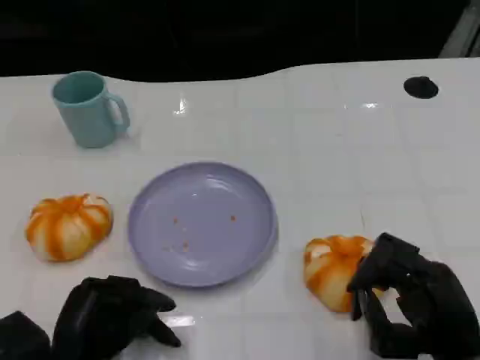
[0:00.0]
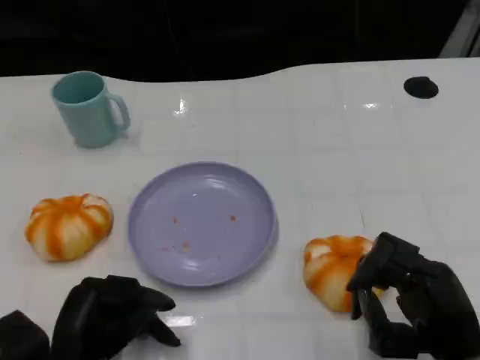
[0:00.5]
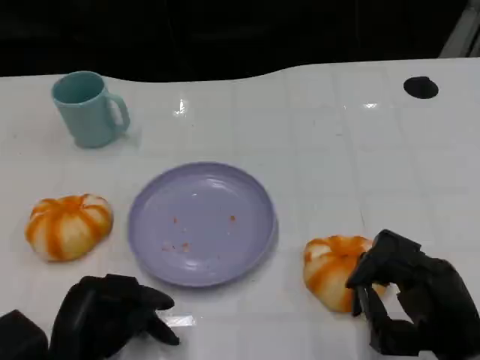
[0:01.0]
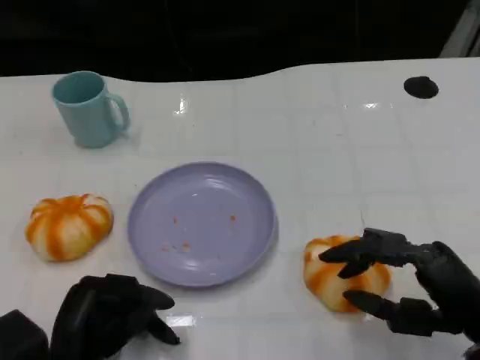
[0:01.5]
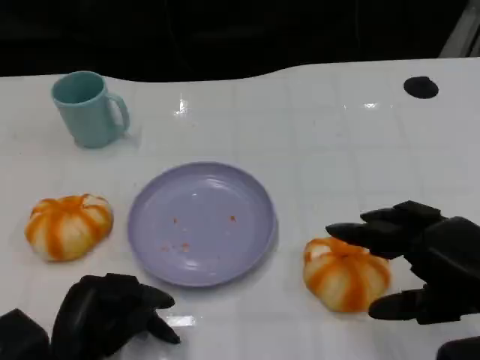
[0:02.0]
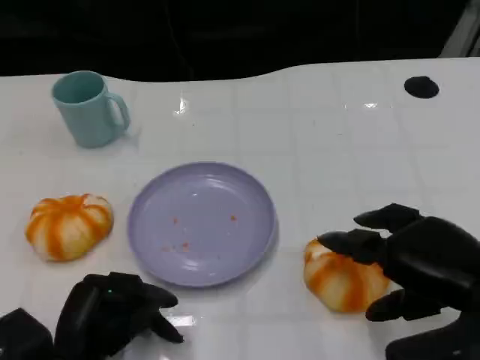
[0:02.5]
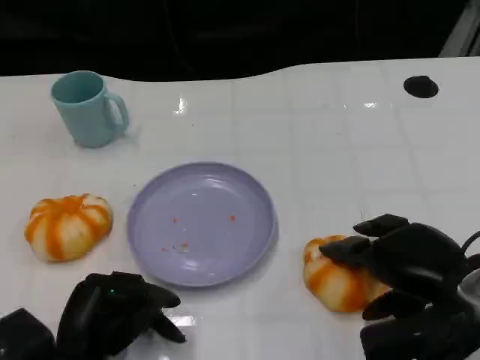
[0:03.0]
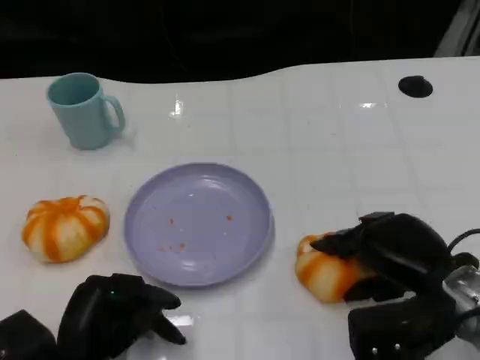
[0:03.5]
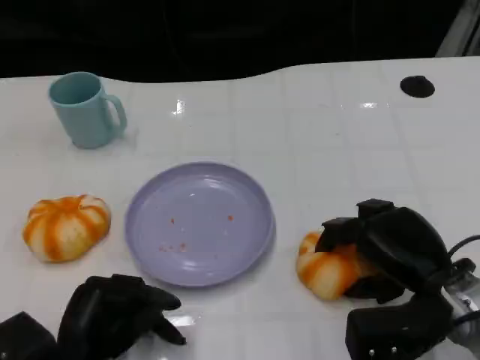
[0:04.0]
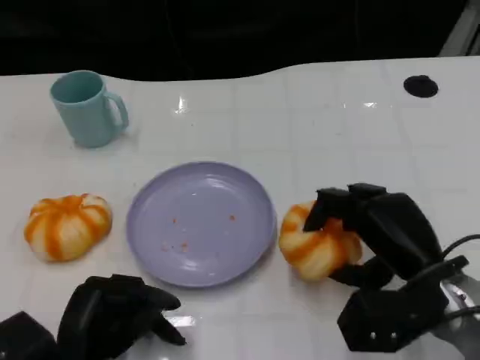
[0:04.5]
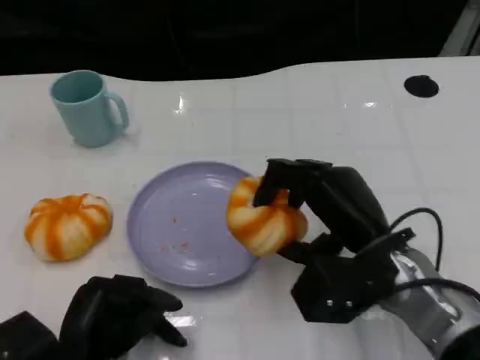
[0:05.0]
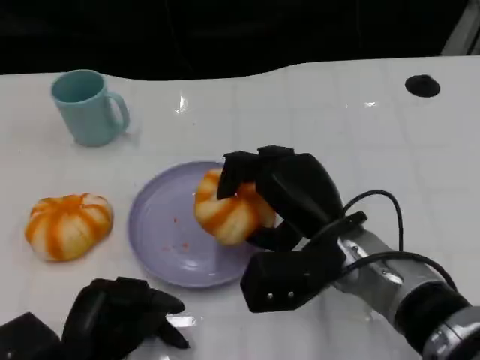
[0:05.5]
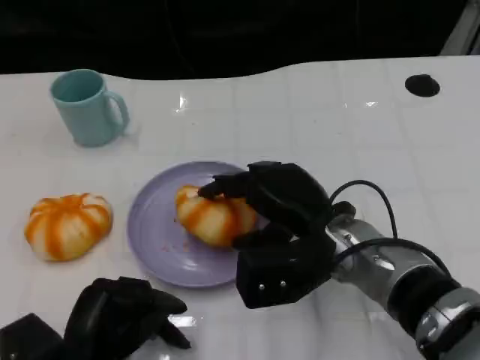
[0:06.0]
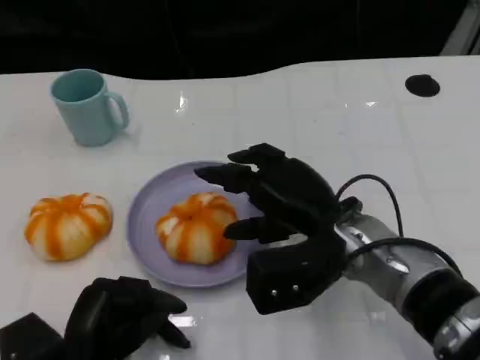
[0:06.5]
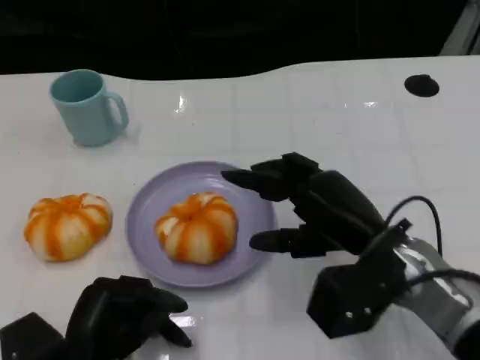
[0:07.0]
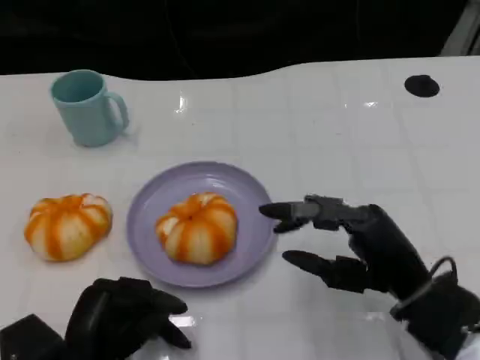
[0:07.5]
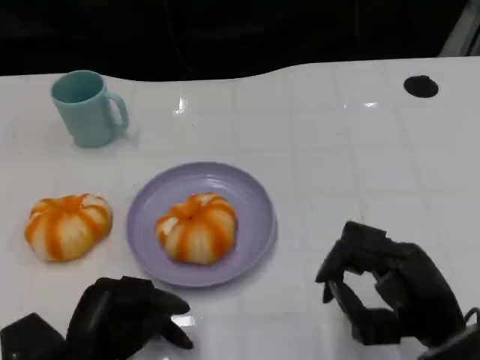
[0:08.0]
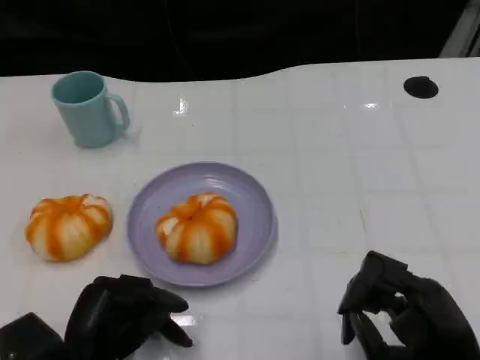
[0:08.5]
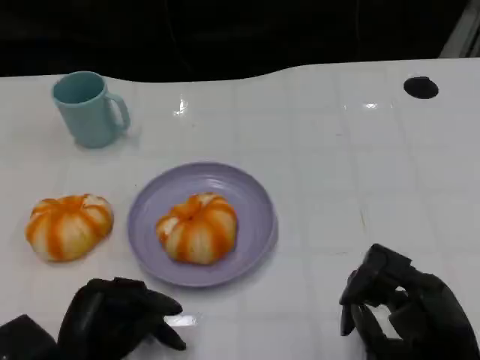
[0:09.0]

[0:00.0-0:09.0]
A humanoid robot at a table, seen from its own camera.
Task of the whole recording: Grasp the bread from the table and place it into the plate.
0:00.0 to 0:02.0: The right hand travels upward by some 10 cm.
0:02.0 to 0:04.5: The right hand heads downward, to the left and forward, covering some 10 cm.
0:07.0 to 0:09.0: The right hand moves backward and to the right, roughly 10 cm.

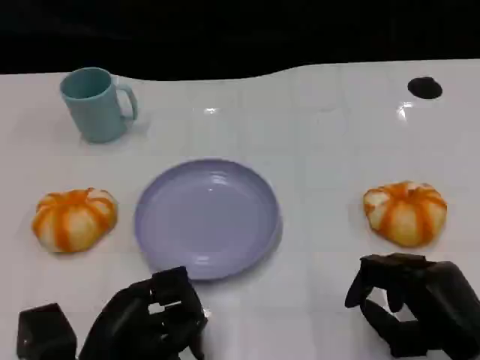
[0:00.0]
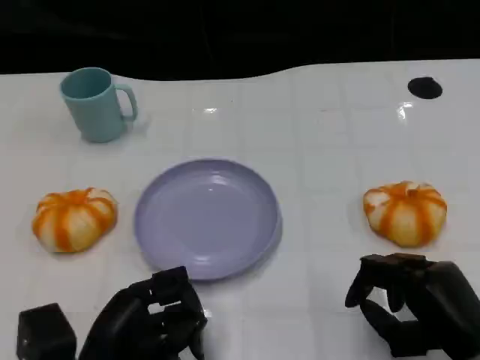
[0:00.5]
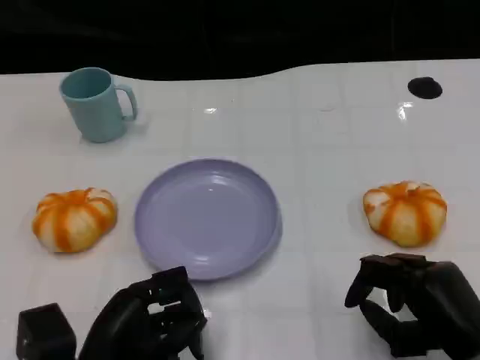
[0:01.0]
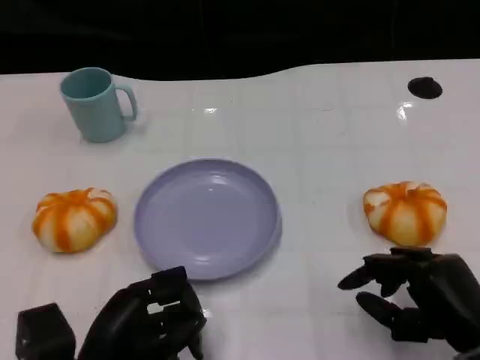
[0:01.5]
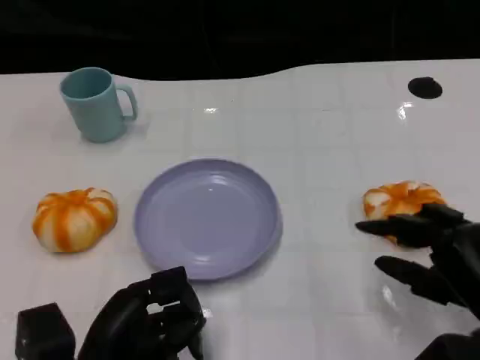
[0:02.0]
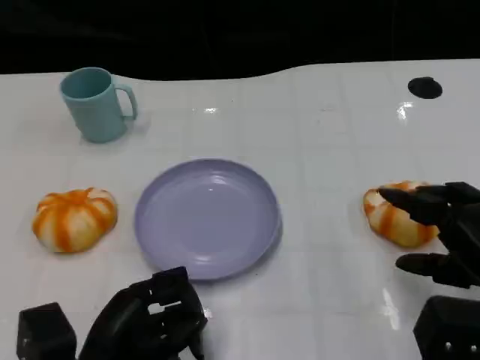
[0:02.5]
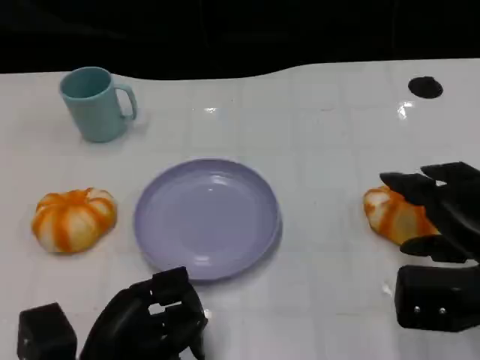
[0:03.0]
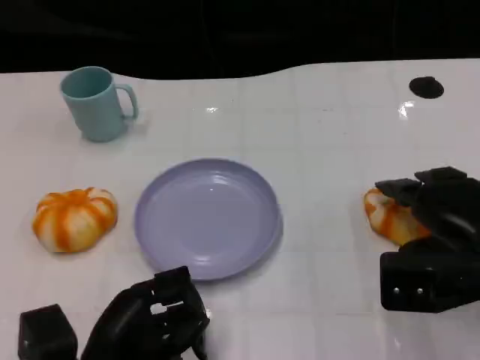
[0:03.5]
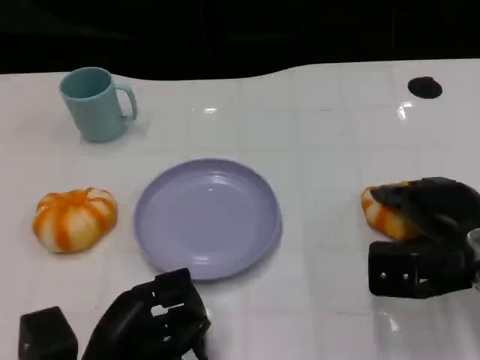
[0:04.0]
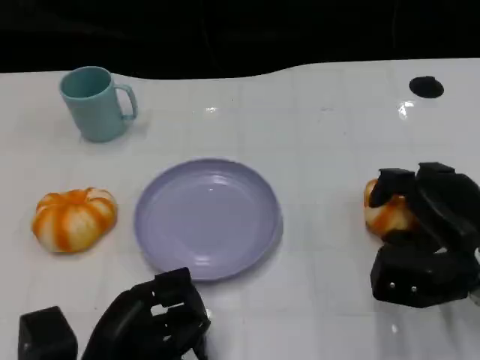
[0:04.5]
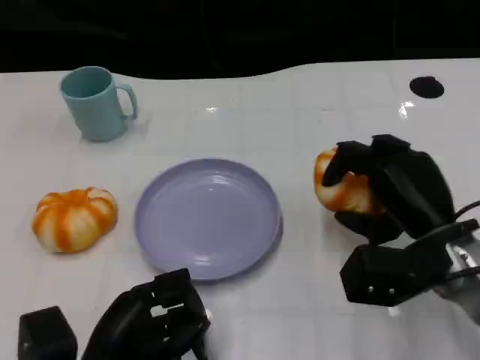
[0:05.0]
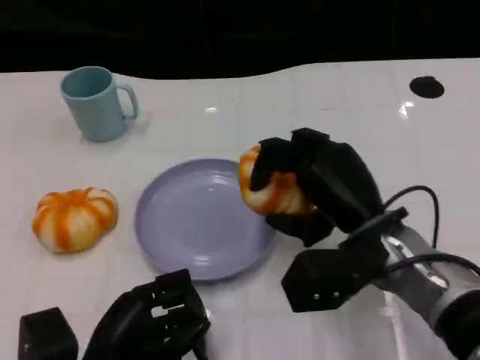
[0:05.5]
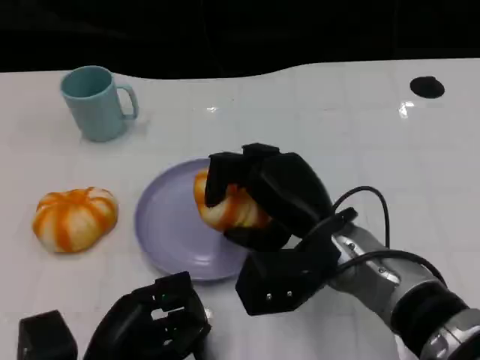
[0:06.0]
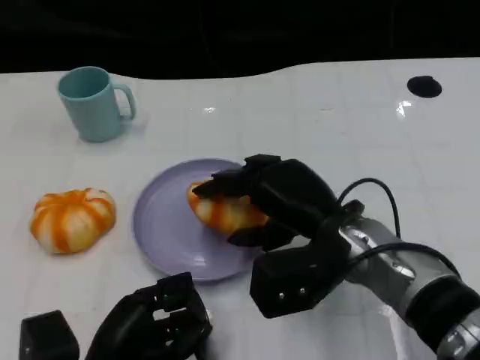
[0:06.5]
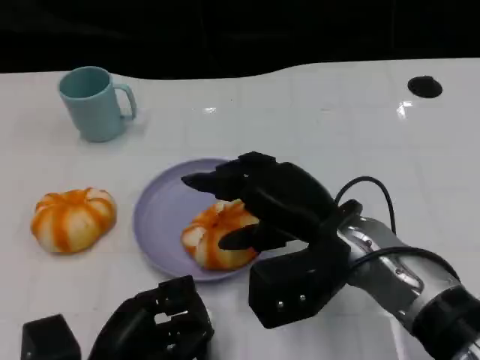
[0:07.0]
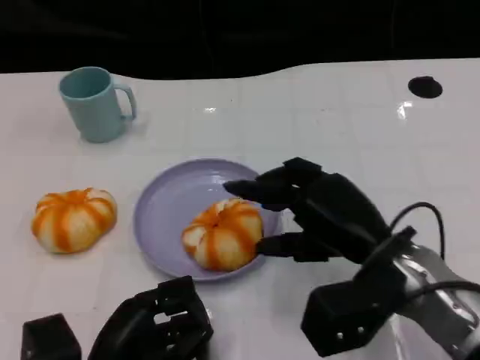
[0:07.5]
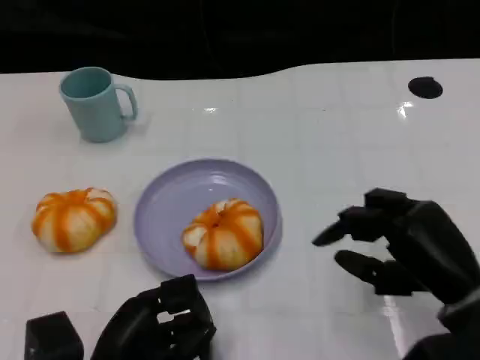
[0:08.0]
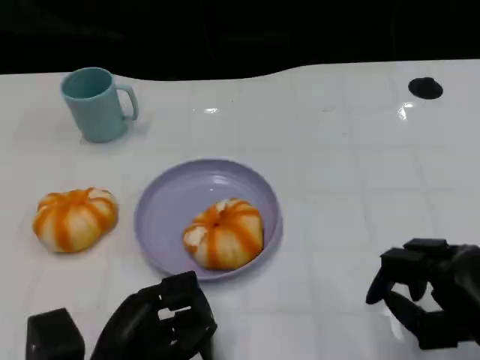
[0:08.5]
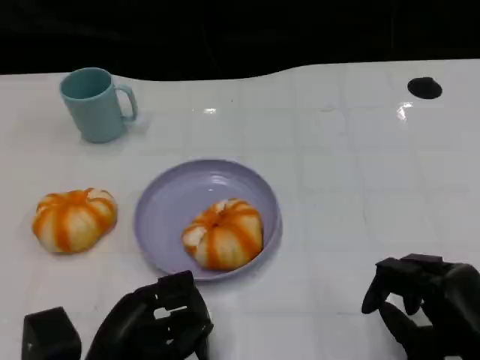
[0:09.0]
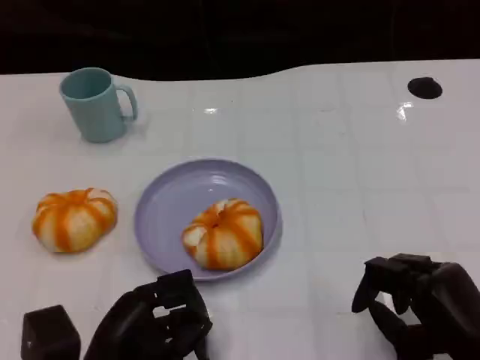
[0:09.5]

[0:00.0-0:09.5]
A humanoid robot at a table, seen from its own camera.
Task of the whole recording: Grasp the bread from the table and place it into the plate.
0:00.0 to 0:02.0: The hands move only a little.
0:02.0 to 0:04.0: The right hand travels forward by about 10 cm.
0:04.0 to 0:05.5: The right hand heads to the left, covering approximately 10 cm.
0:07.5 to 0:09.5: The right hand goes roughly 15 cm to the right, backward and downward.

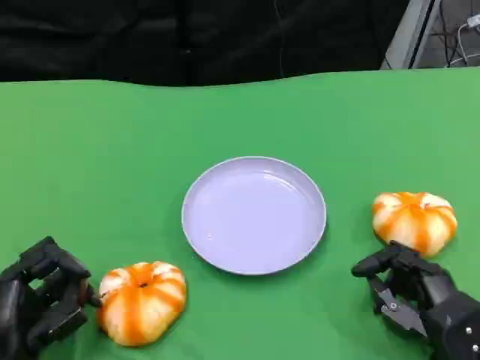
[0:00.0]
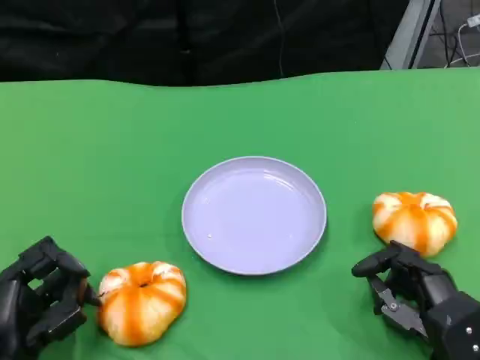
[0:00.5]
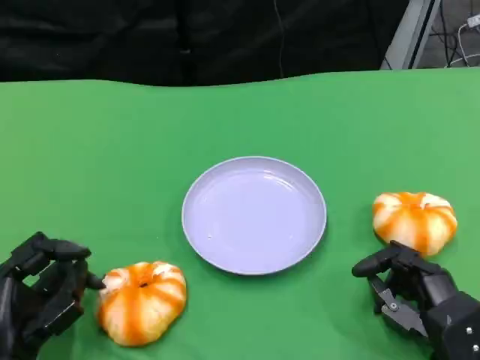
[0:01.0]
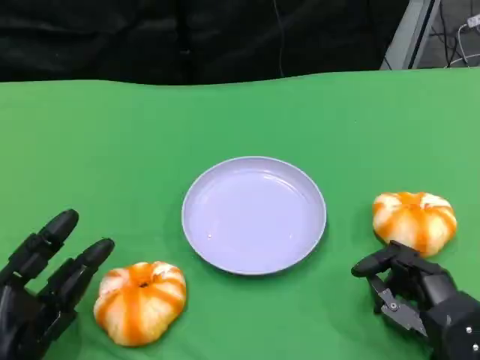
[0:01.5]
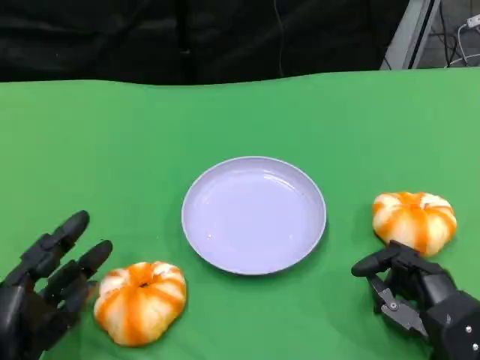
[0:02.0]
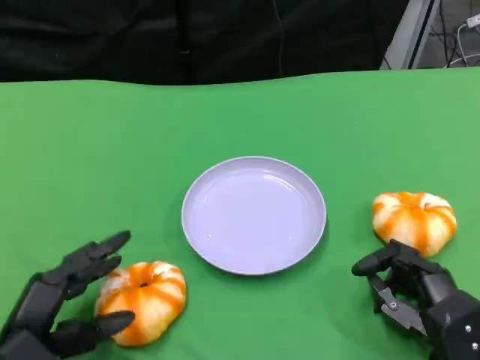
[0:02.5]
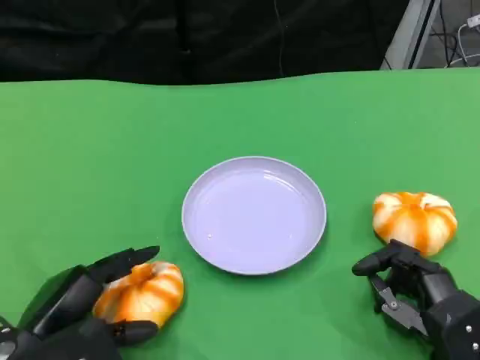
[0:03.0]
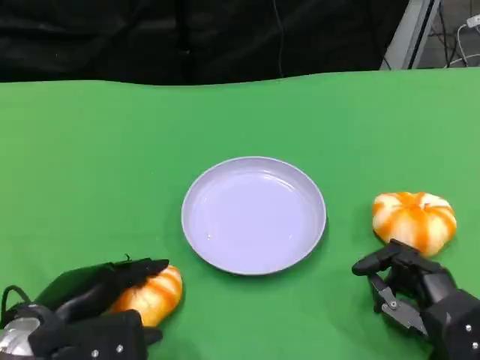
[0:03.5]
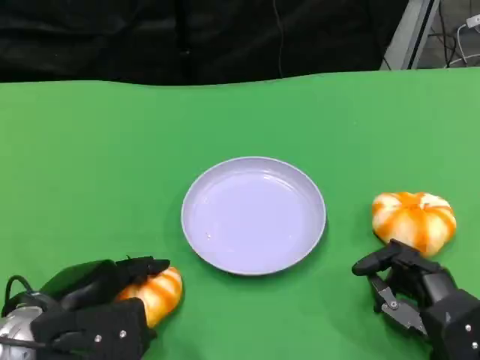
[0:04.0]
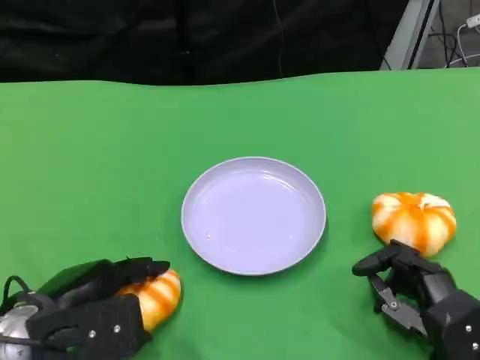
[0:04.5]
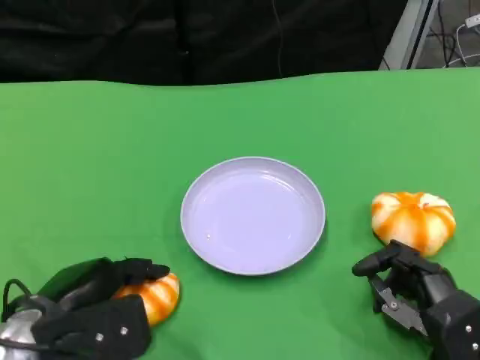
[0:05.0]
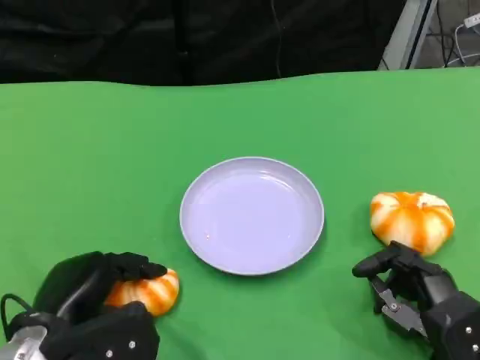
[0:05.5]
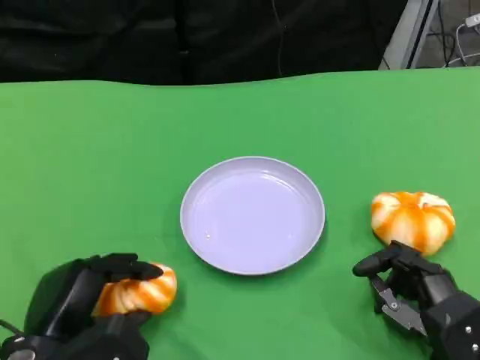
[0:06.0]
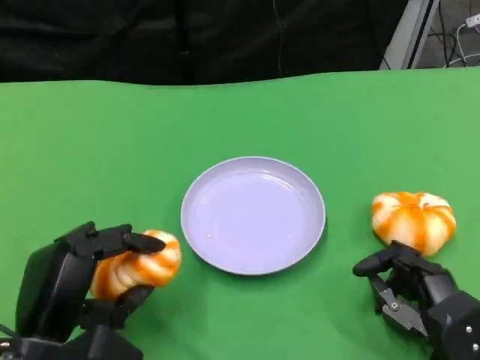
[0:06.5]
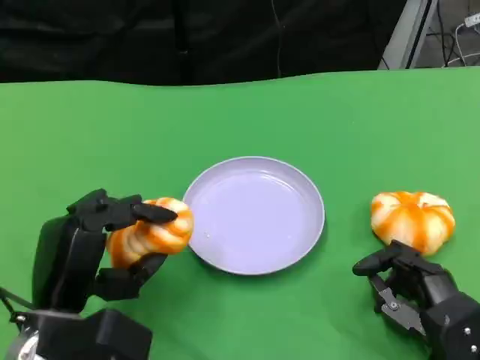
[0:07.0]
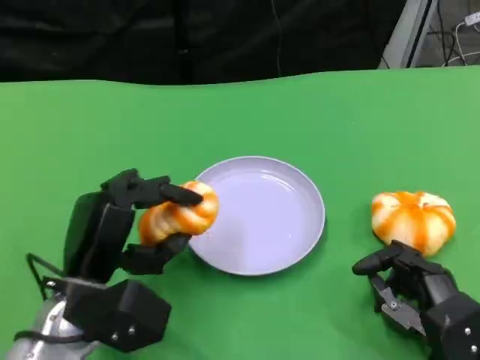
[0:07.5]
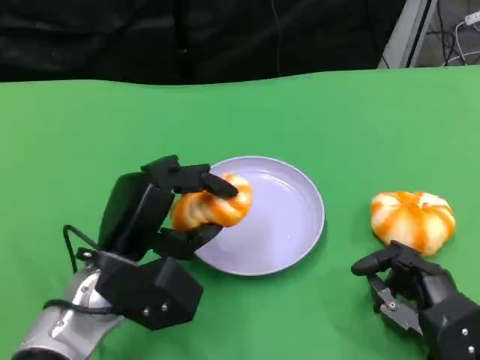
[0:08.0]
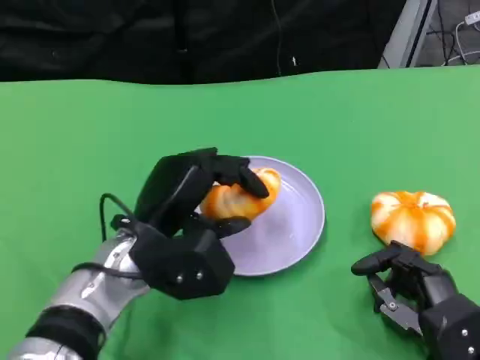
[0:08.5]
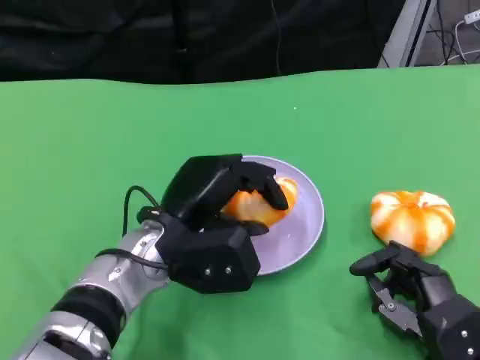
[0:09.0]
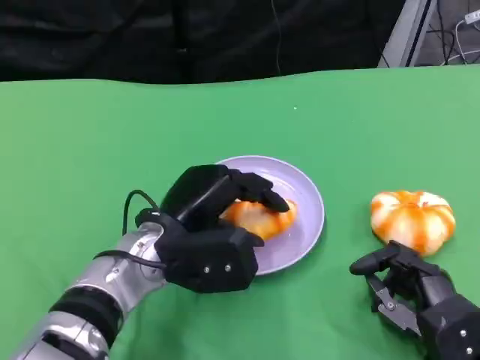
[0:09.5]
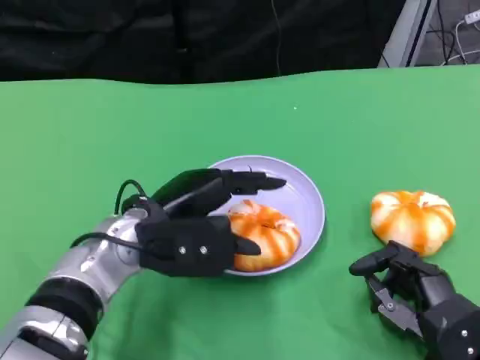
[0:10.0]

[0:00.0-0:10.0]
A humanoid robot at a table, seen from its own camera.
Task of the whole recording: Grasp the bread from the table and place it into the plate.
0:00.0 to 0:02.0: The hands move only a little.
0:02.0 to 0:04.0: The left hand goes approximately 5 cm upward.
0:06.0 to 0:08.0: The left hand heads forward and to the right, covering roughly 10 cm.
0:08.0 to 0:10.0: The left hand moves some 5 cm.
